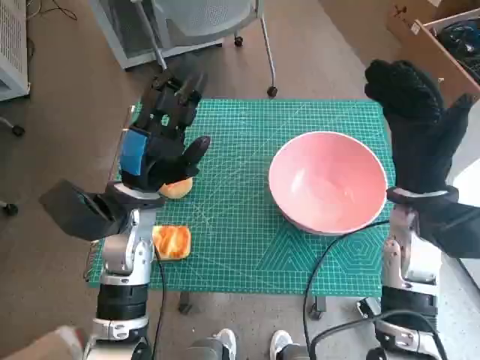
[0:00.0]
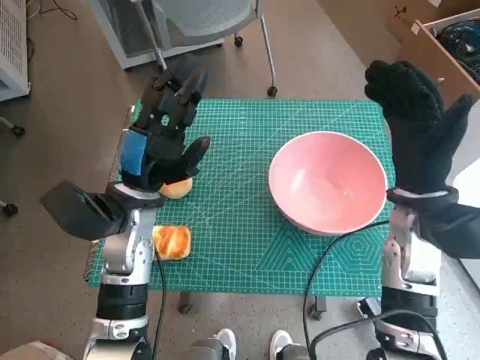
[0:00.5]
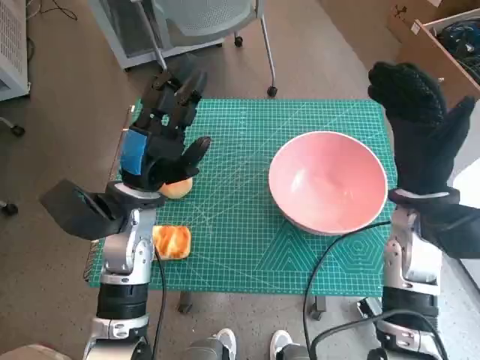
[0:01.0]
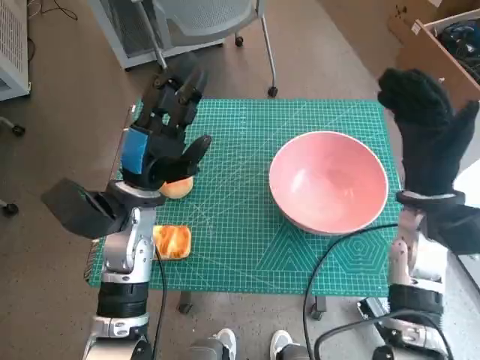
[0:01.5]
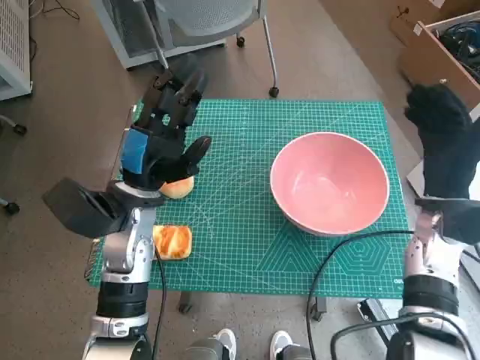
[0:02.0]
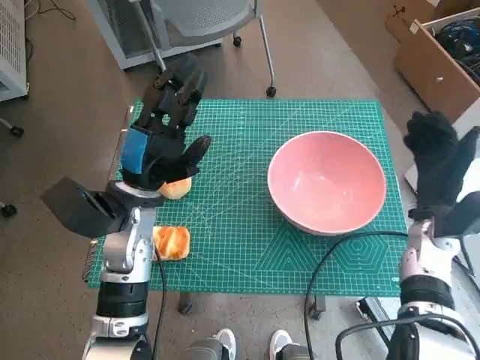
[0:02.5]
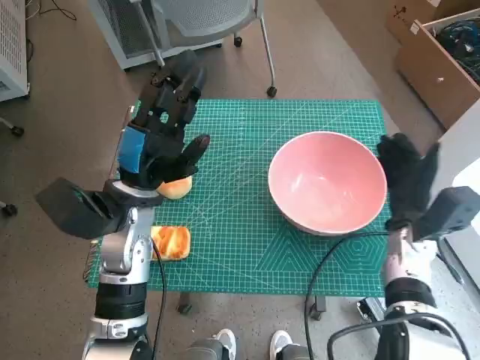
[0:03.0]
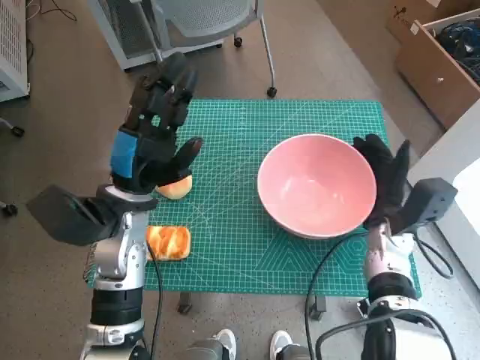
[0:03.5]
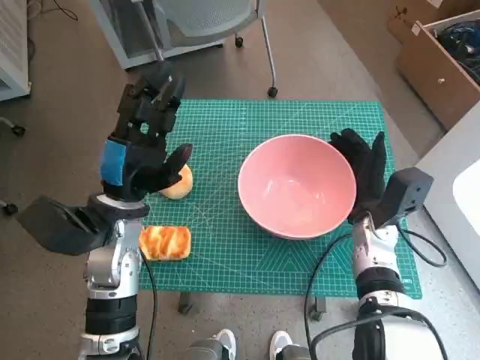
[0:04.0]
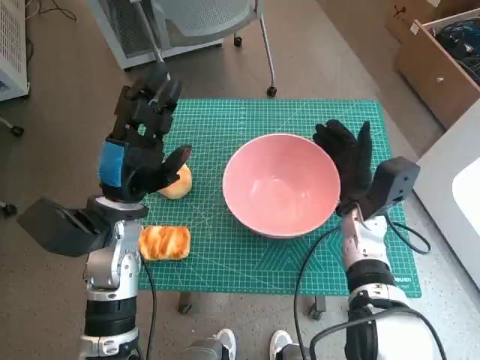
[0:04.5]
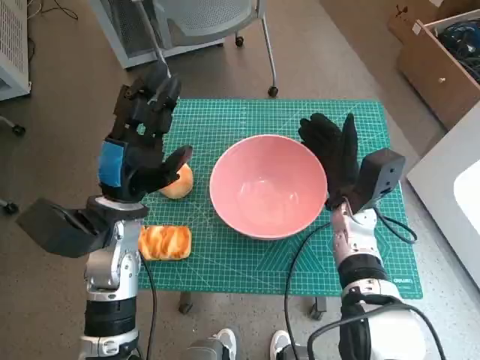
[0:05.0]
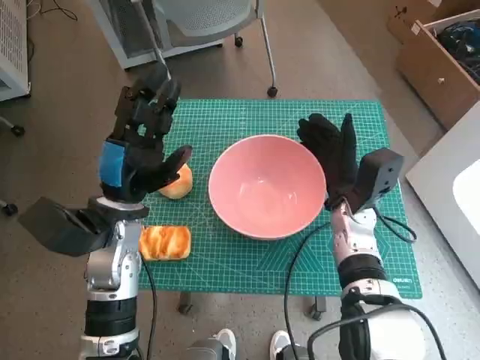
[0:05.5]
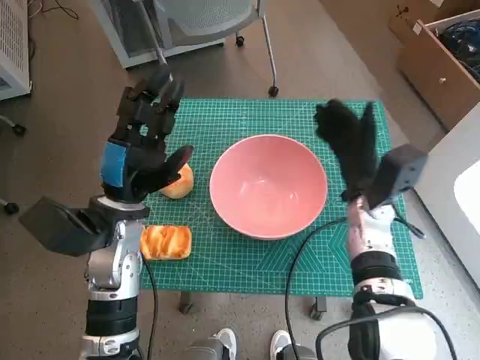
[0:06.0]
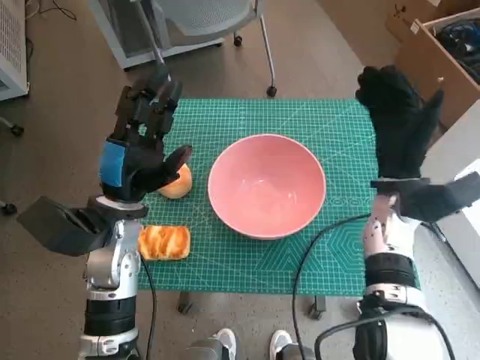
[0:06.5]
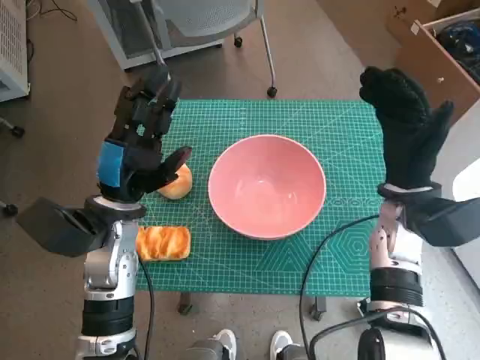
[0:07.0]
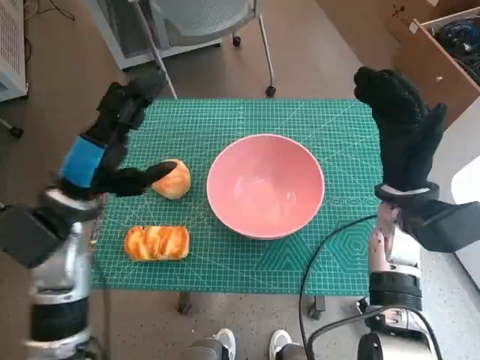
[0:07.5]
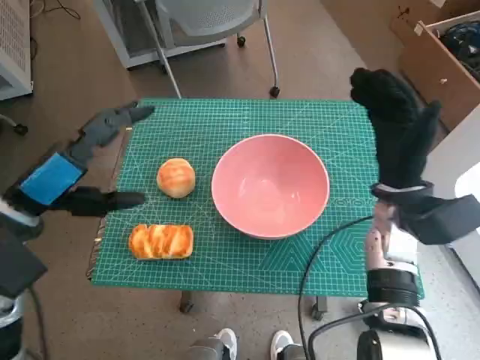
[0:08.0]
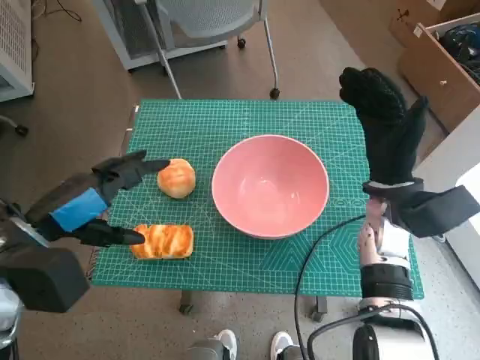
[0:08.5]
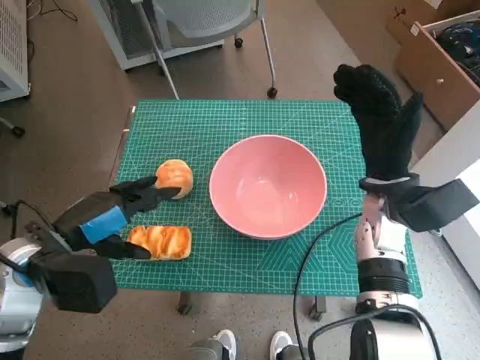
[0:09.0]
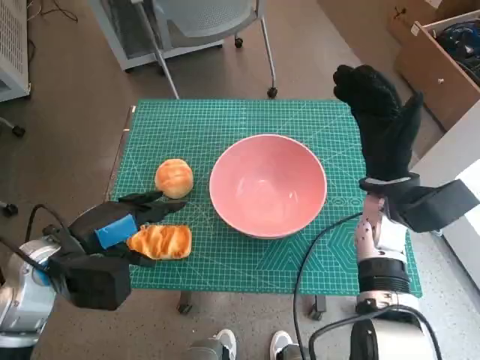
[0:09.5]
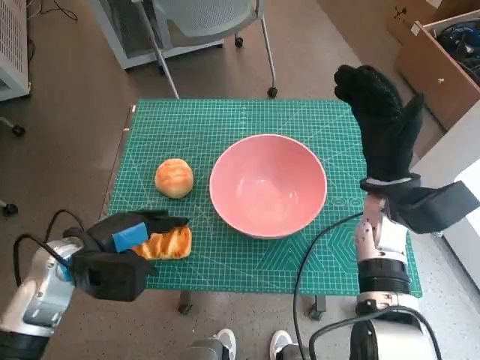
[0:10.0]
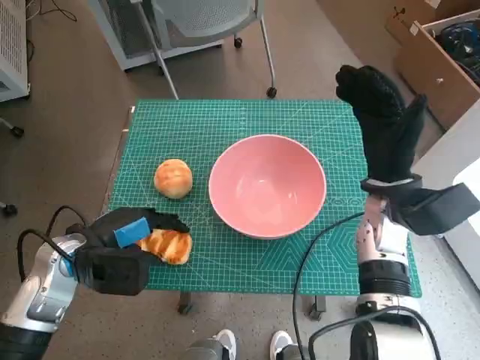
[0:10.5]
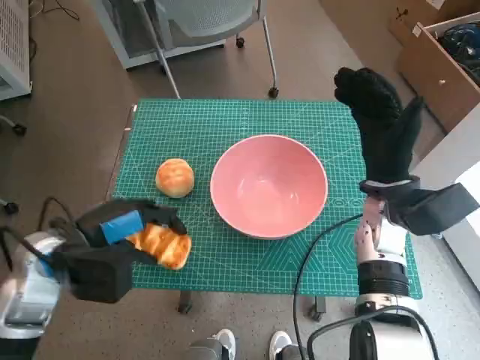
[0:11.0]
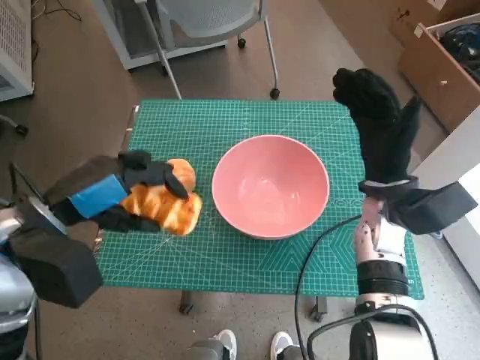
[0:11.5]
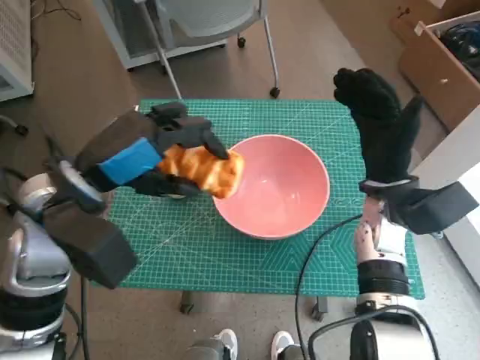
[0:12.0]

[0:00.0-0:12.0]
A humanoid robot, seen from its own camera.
Step, 0:00.0 to 0:05.5: Move the pink bowl to the center of table with right hand.
Step, 0:06.0 to 0:10.5: Grasp the long bread with left hand.
0:02.0 to 0:04.0: The right hand heads downward and to the left, covering some 10 cm.
0:04.0 to 0:06.0: The hands make only small movements.
0:06.0 to 0:08.0: The left hand heads to the left and upward, covering approximately 10 cm, while the right hand moves upward, some 5 cm.
0:08.0 to 0:10.0: The left hand heads downward, covering roughly 10 cm.
0:10.0 to 0:12.0: The left hand heads upward, covering approximately 10 cm.

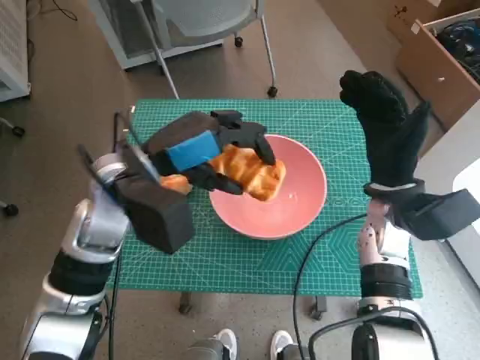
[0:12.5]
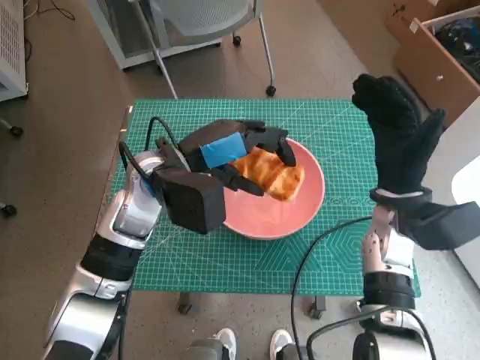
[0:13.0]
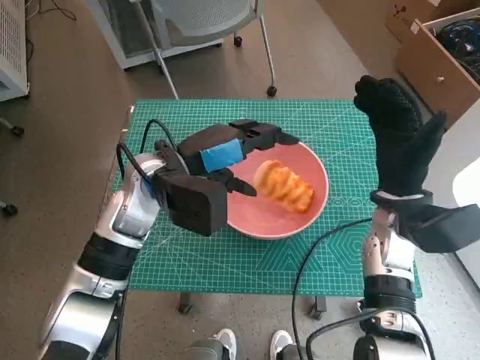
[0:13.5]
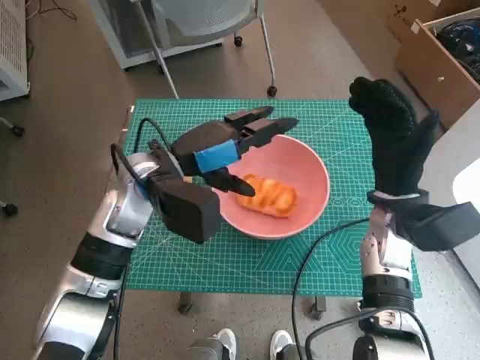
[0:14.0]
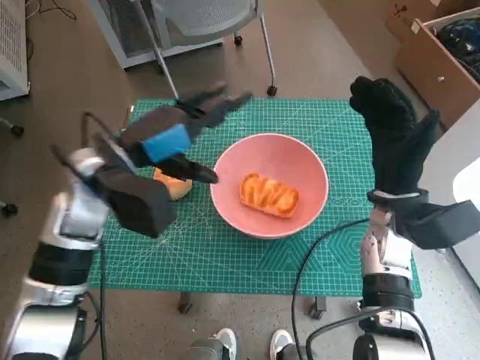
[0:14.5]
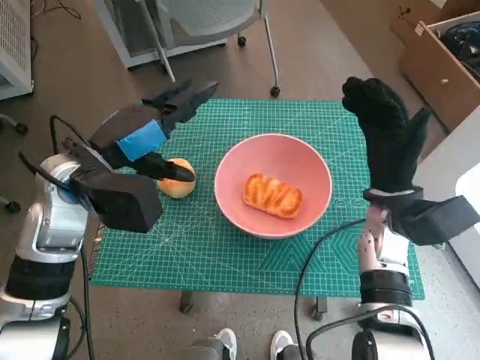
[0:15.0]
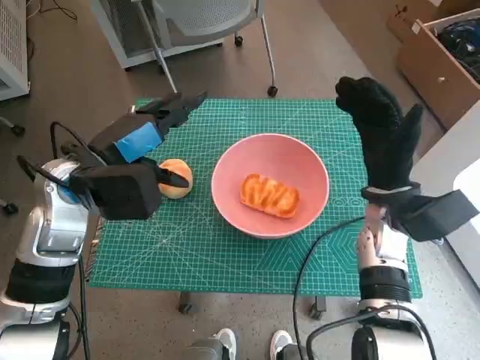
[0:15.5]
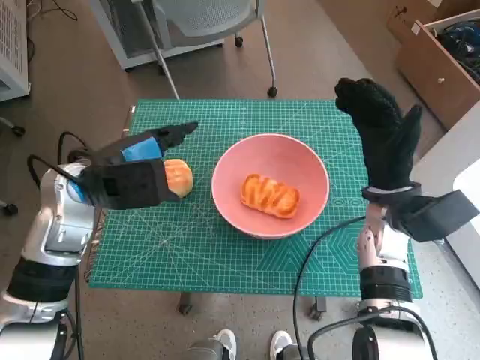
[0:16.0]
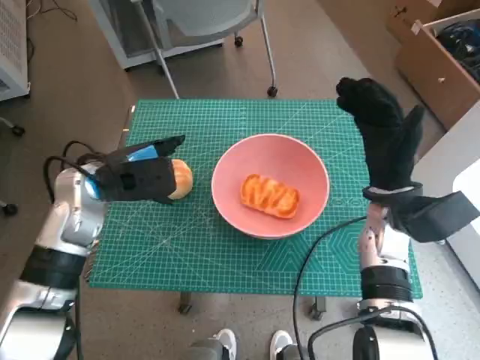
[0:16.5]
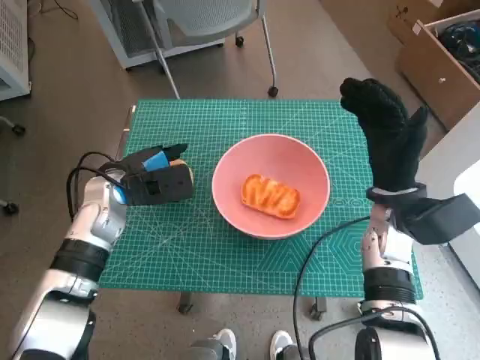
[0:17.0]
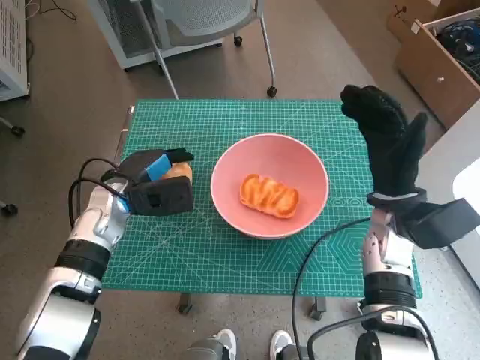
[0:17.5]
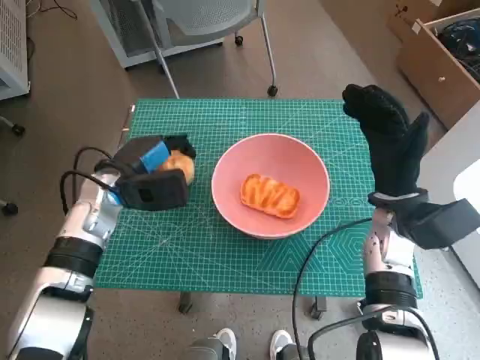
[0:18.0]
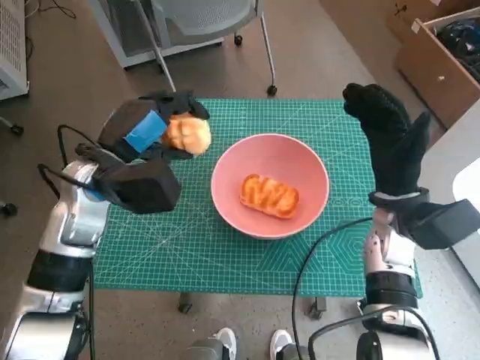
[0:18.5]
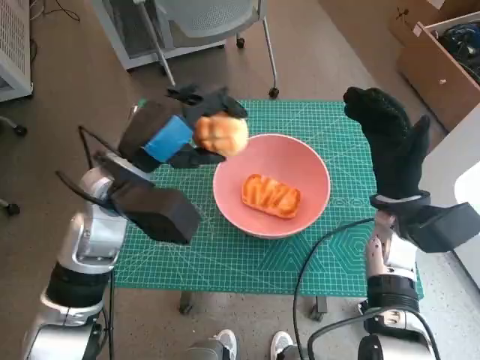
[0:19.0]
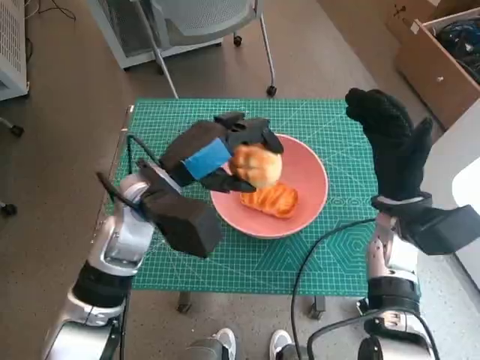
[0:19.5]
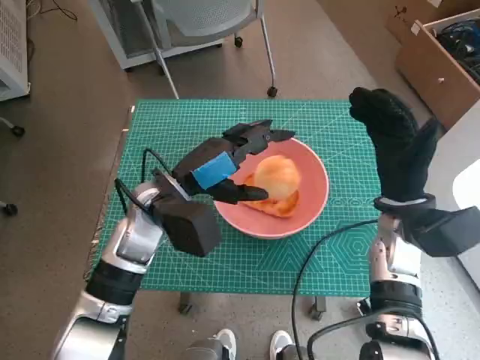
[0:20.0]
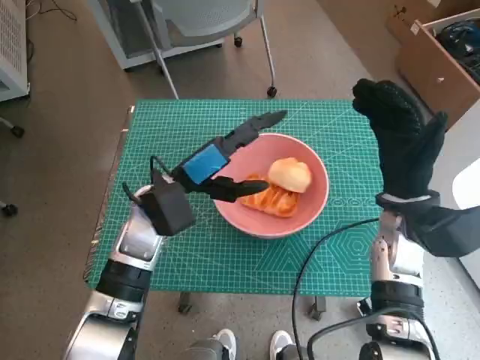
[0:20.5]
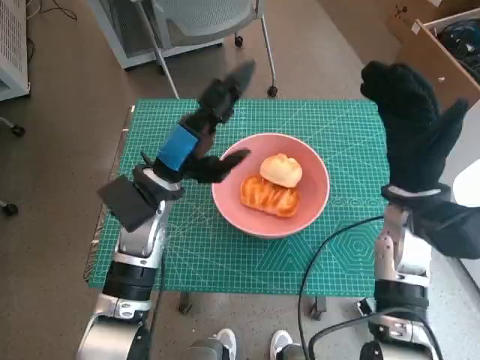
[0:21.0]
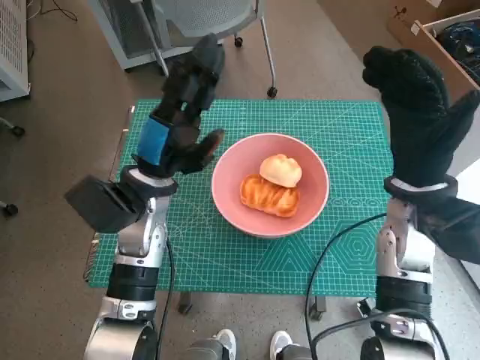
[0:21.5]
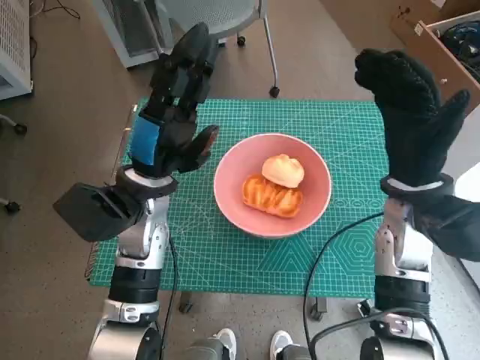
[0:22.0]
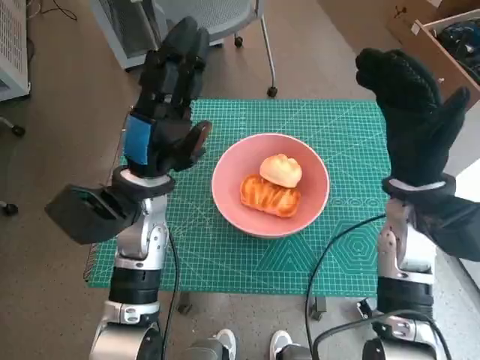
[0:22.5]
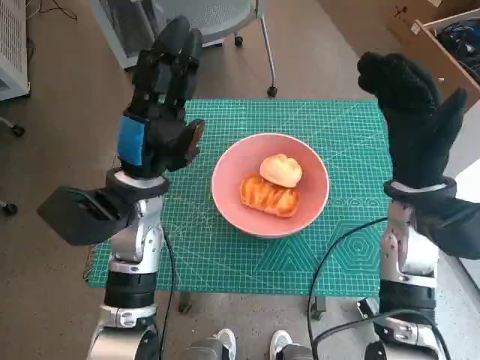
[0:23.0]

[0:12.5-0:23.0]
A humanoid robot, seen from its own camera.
Step, 0:13.5 to 0:17.5: Grasp the round bread with left hand.
Step, 0:18.0 to 0:20.0: Place the round bread in pink bowl with left hand.
0:14.5 to 0:16.5: The left hand ends up about 5 cm from where it was.
0:16.5 to 0:19.0: The left hand is displaced to the right by roughly 5 cm.
0:19.0 to 0:21.0: The left hand heads downward, covering some 5 cm.

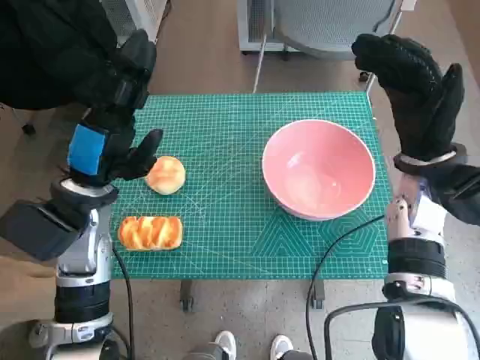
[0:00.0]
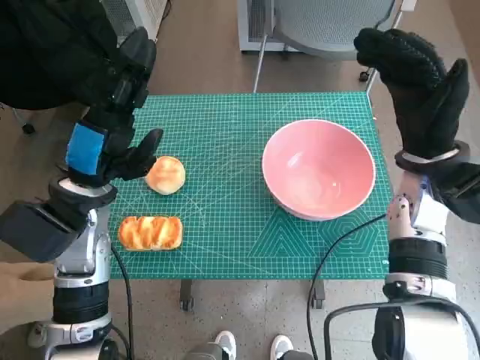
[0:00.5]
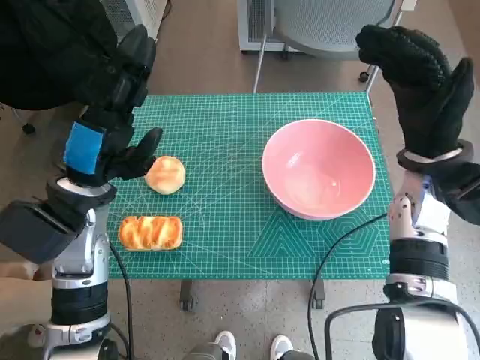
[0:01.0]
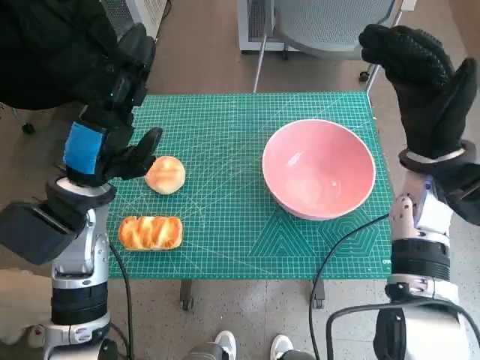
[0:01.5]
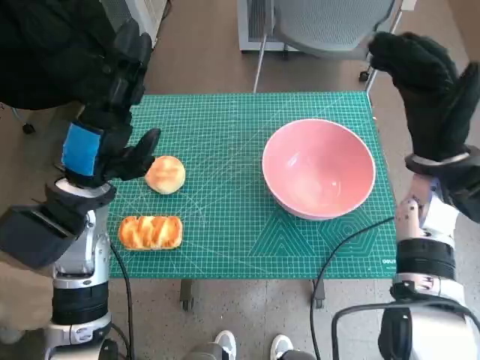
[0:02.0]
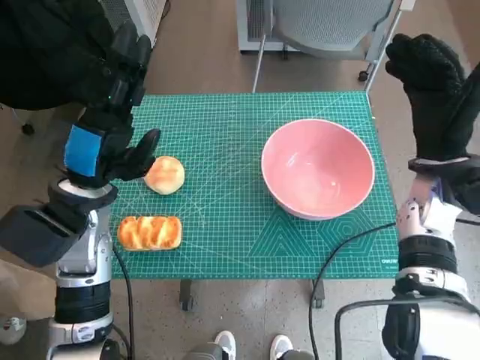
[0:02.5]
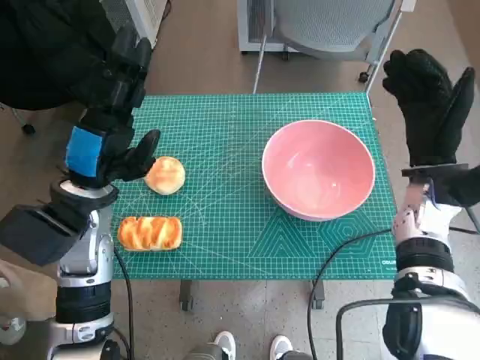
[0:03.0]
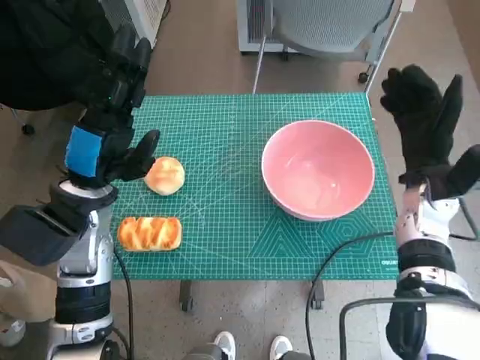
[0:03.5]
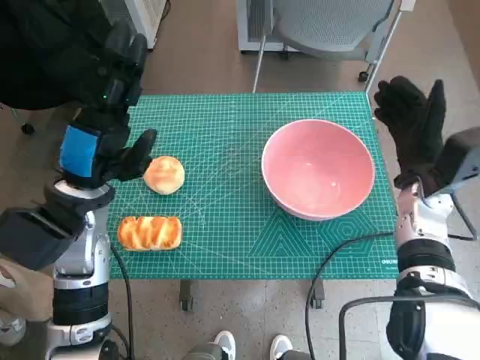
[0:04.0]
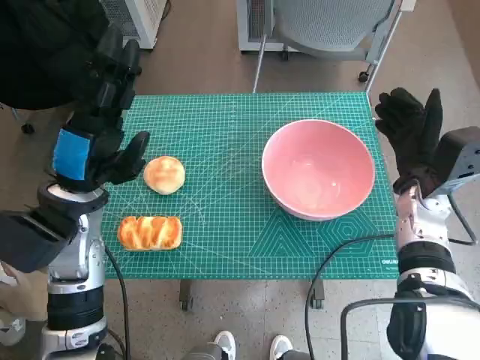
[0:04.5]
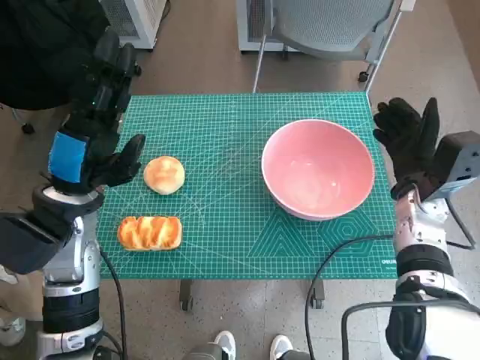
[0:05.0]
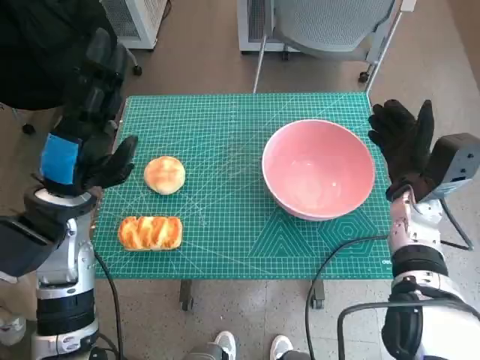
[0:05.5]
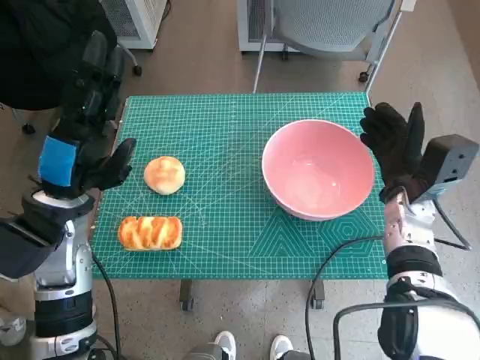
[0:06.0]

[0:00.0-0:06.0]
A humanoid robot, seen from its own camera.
0:02.0 to 0:04.0: The right hand shifts approximately 5 cm downward.
